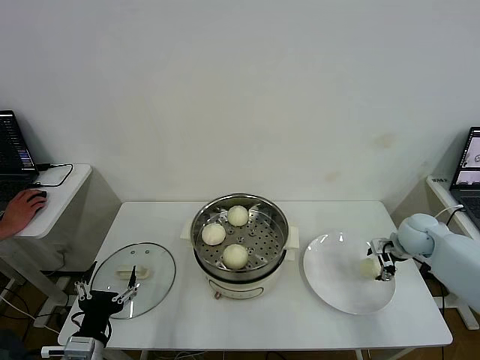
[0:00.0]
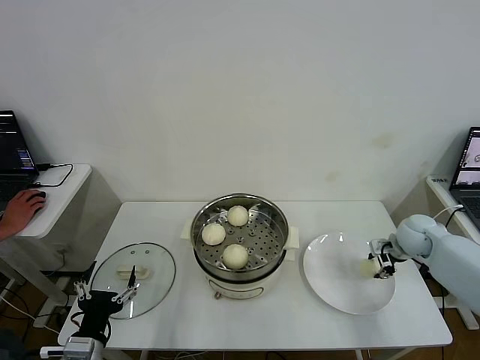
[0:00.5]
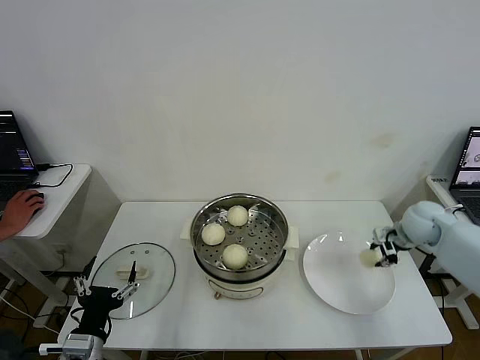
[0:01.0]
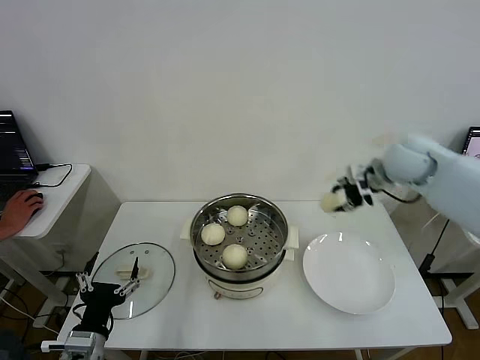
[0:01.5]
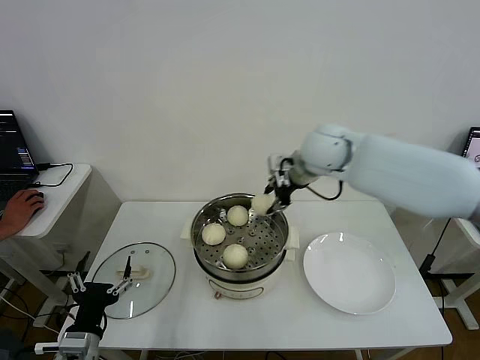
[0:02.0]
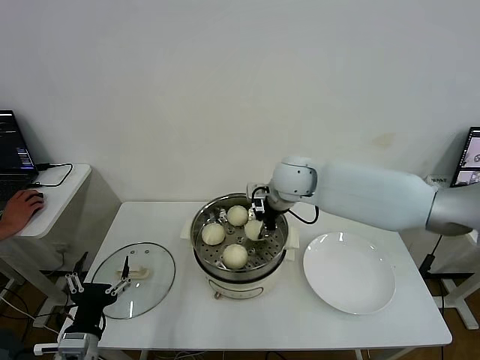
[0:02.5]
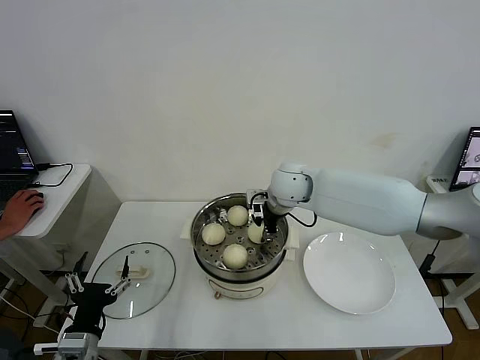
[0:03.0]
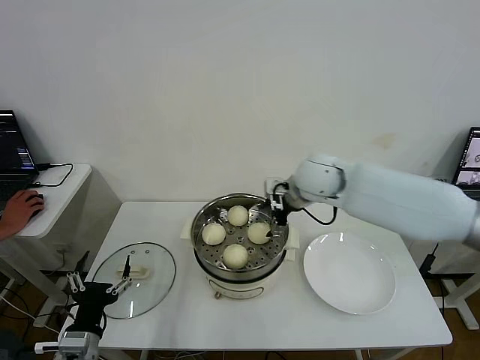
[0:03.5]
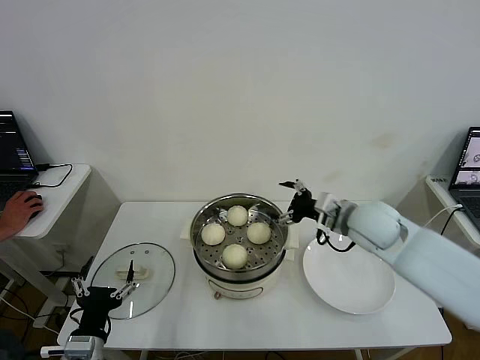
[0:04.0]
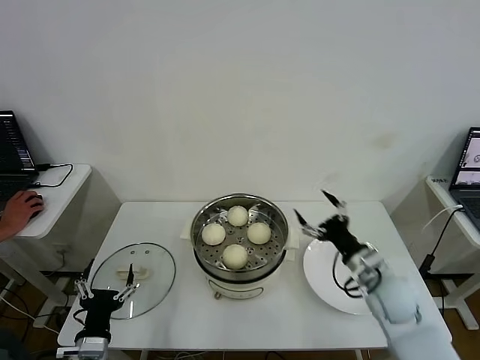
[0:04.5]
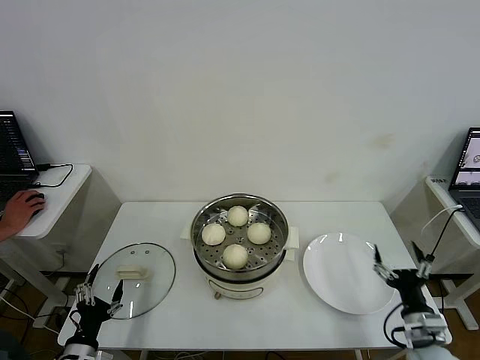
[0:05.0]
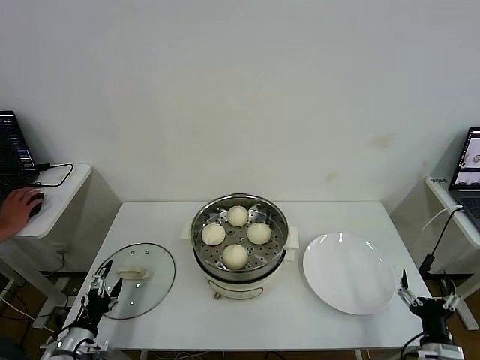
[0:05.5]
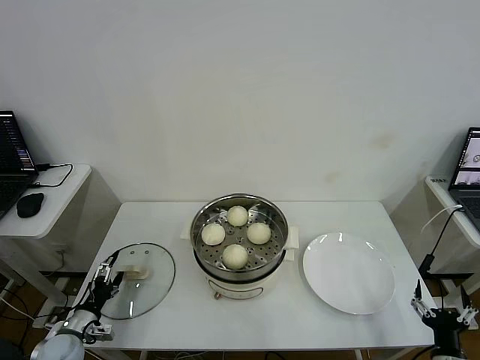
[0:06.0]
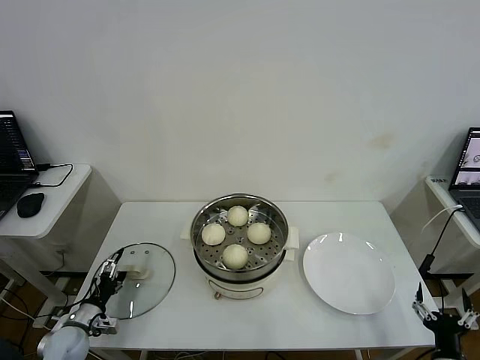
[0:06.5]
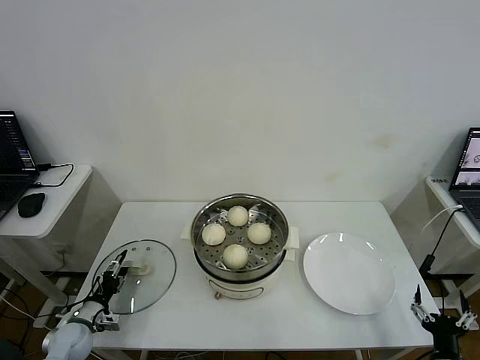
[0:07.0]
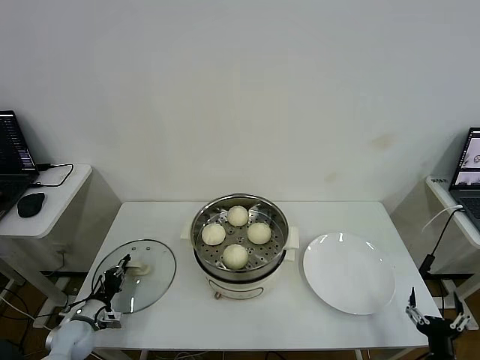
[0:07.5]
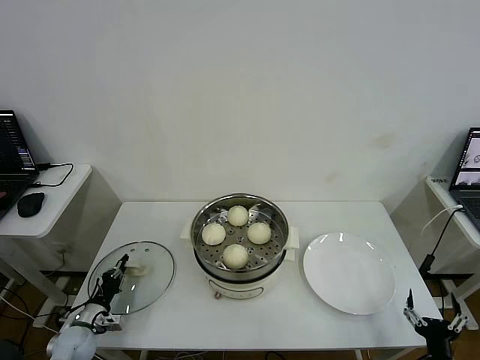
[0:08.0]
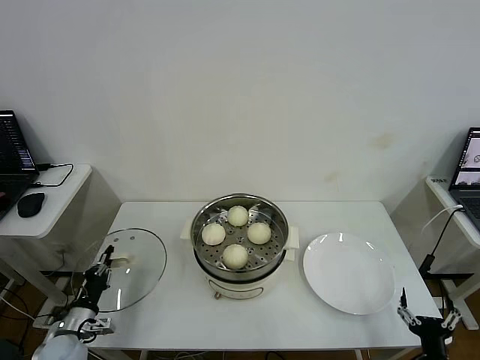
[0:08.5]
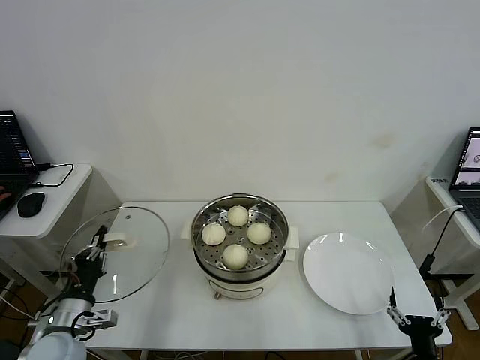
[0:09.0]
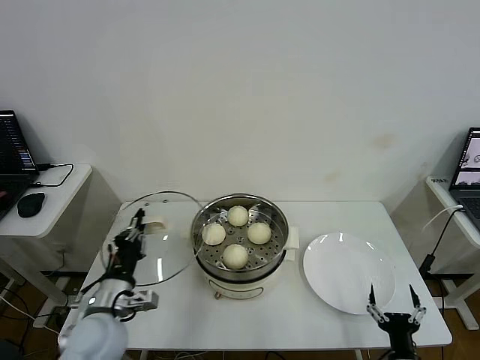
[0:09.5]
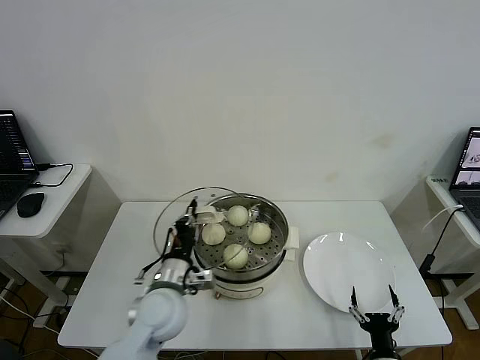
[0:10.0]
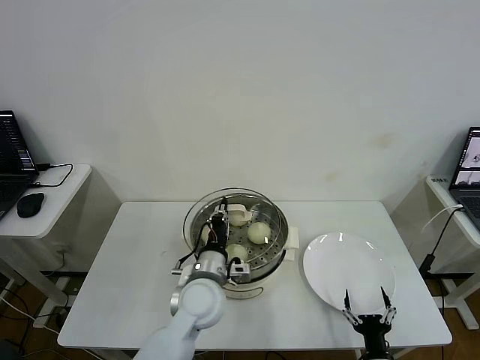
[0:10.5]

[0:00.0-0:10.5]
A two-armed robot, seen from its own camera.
Task of the whole recording: take steamed baozi put them in steamer then cover it.
Step, 0:01.0 to 0:03.0: Place the baozi on the steamer with right gripper.
Step, 0:03.5 to 0:07.5: Grasp the pot lid with left gripper.
0:00.0 to 0:02.0: The right gripper shifts some 35 cm to the left and upward, and closes up.
0:02.0 to 0:04.0: The right gripper goes approximately 15 cm downward, backward and to the right, and opens its fingers.
0:04.0 to 0:06.5: The left gripper moves downward, to the left and forward, roughly 20 cm, while the right gripper travels backward, downward and to the right by about 40 cm.
0:06.5 to 0:08.5: The left gripper closes up.
0:08.5 to 0:10.5: The left gripper heads to the right and upward, covering roughly 35 cm; the right gripper shifts some 10 cm to the left.

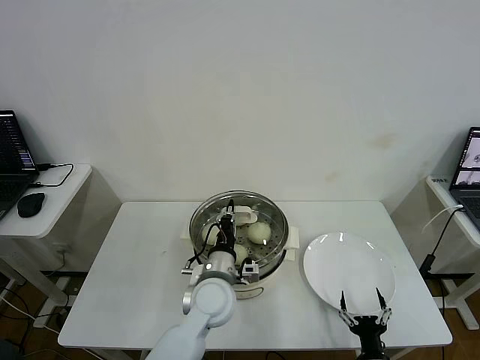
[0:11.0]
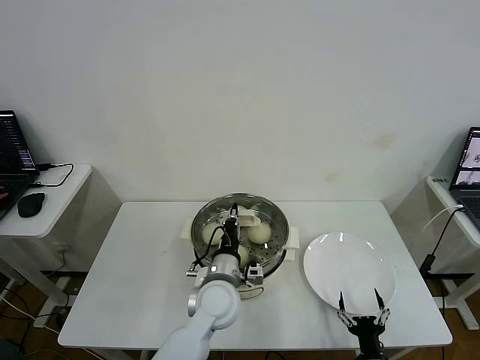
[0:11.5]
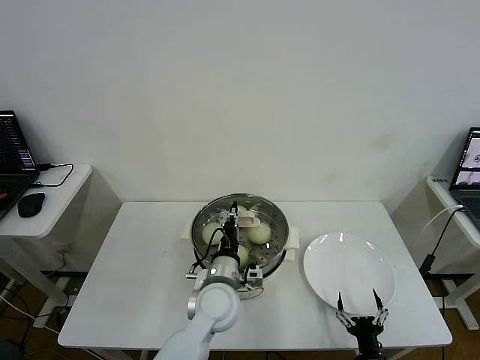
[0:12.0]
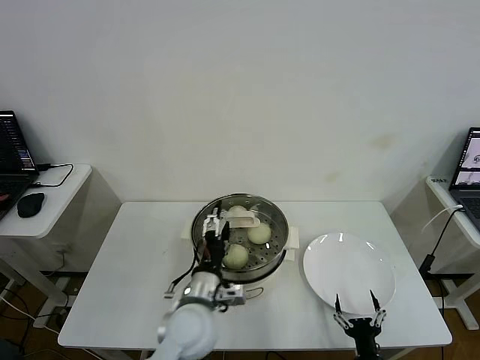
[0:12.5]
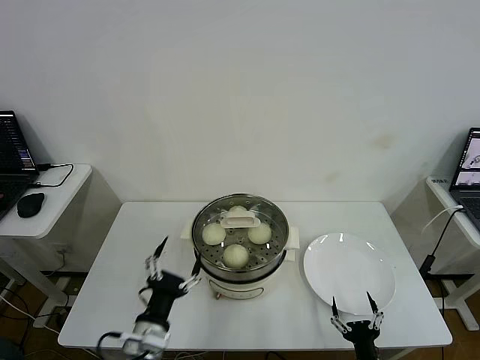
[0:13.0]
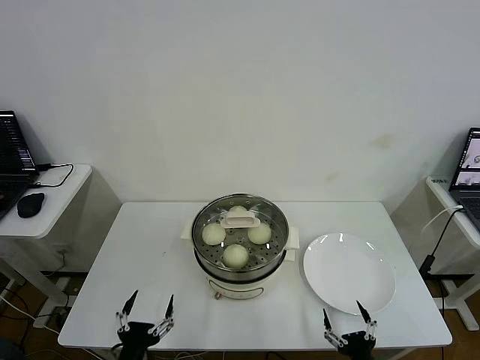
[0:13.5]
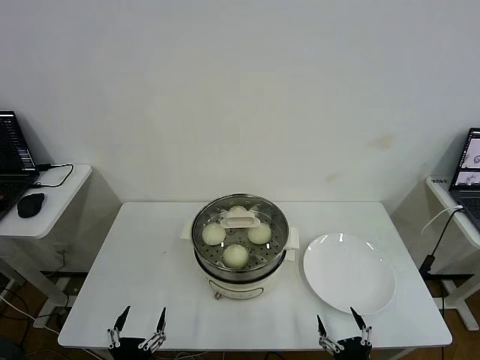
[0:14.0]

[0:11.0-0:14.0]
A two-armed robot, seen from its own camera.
Task of the whole recording: take steamed baozi put them in steamer then cover it.
0:11.0 to 0:12.5: The left gripper changes place by approximately 5 cm, and opens.
0:12.5 to 0:14.0: The left gripper travels backward, to the left and downward by about 30 cm, while the right gripper shifts about 10 cm upward and backward.
